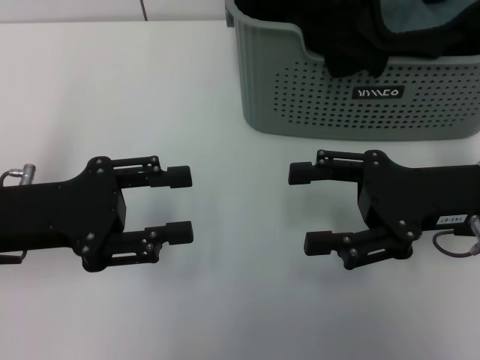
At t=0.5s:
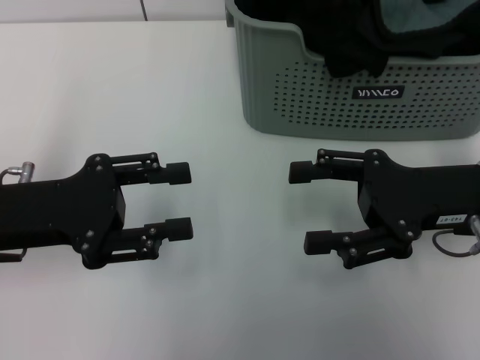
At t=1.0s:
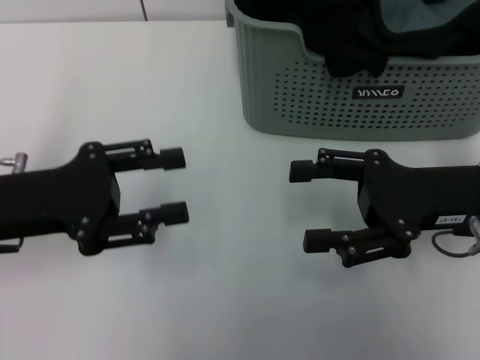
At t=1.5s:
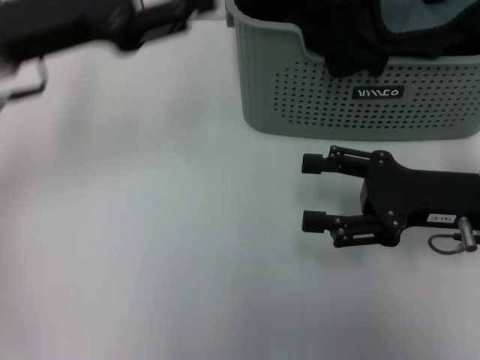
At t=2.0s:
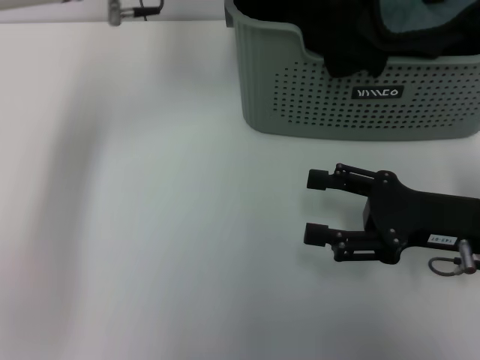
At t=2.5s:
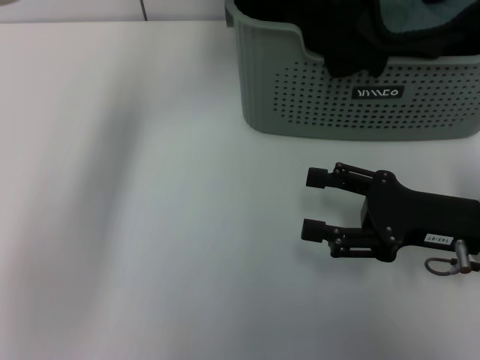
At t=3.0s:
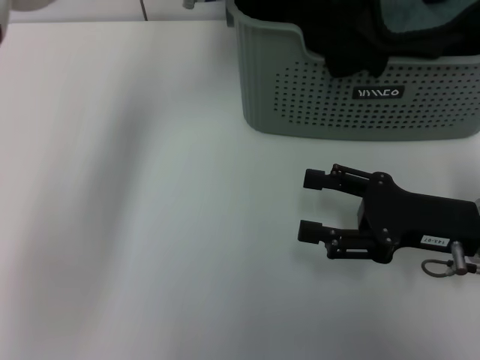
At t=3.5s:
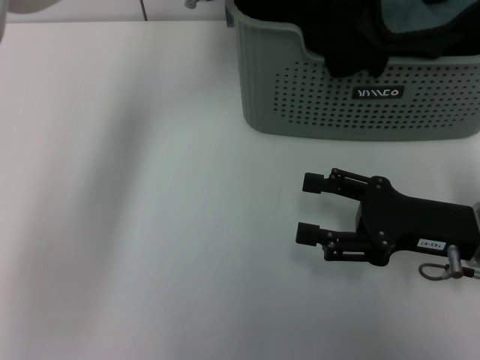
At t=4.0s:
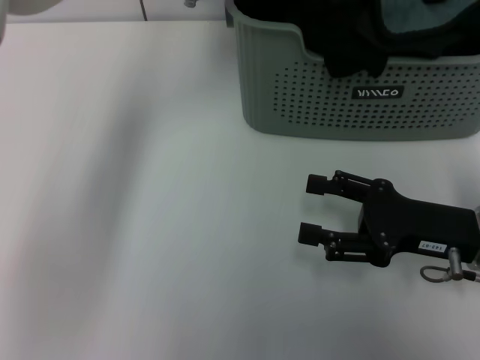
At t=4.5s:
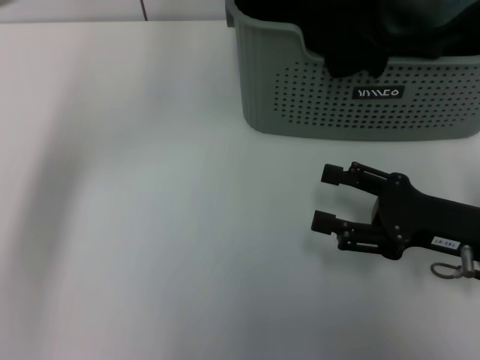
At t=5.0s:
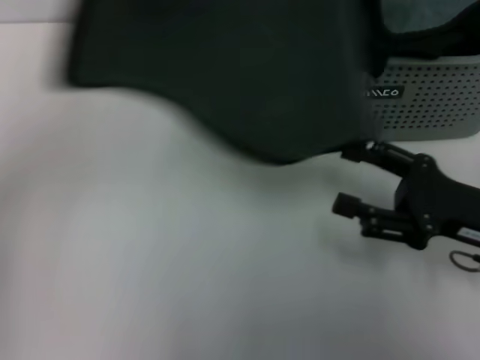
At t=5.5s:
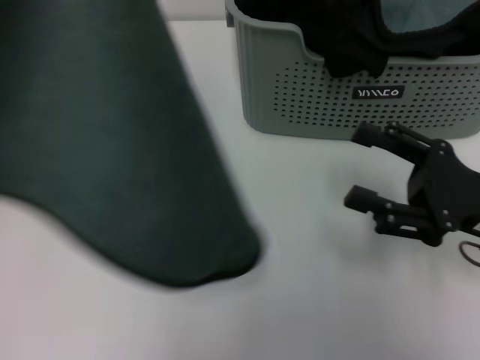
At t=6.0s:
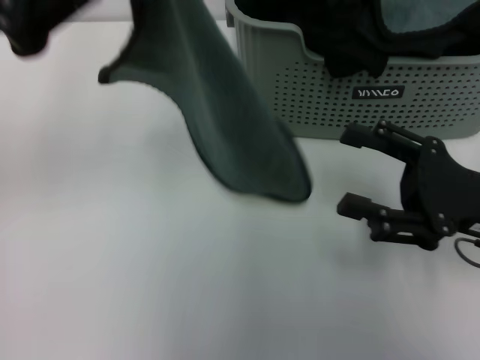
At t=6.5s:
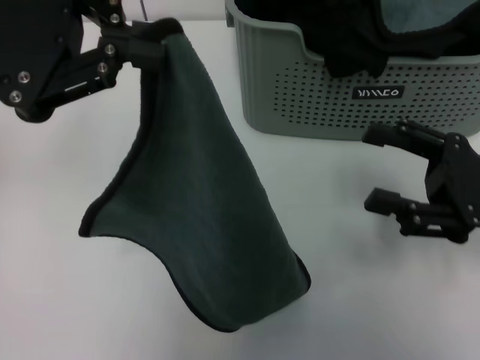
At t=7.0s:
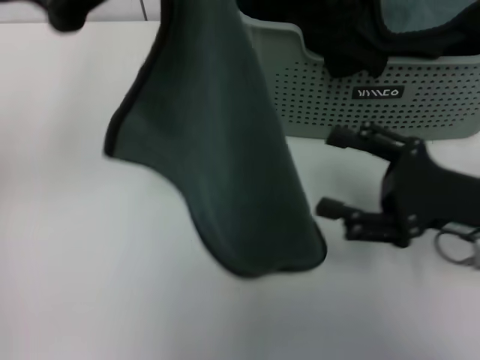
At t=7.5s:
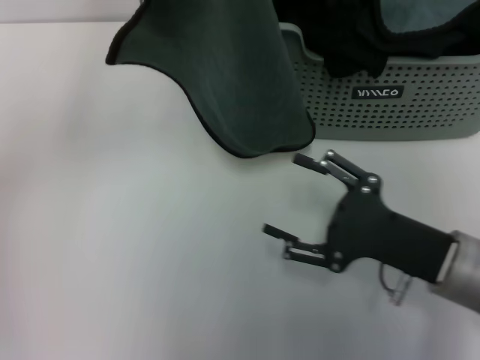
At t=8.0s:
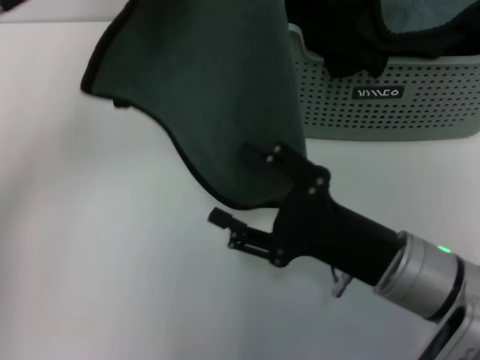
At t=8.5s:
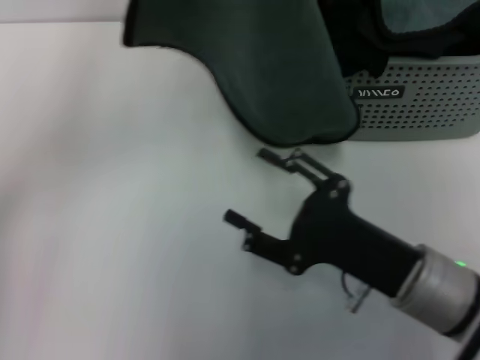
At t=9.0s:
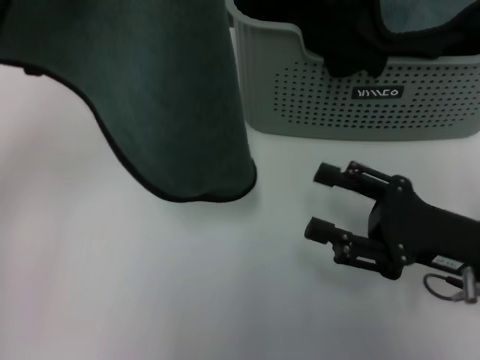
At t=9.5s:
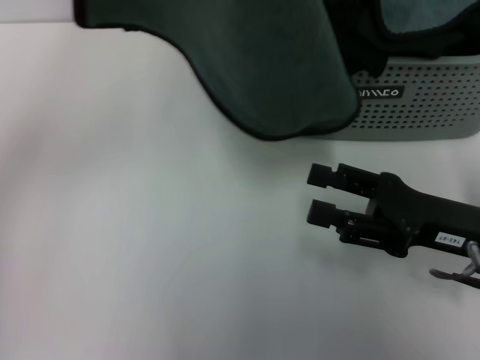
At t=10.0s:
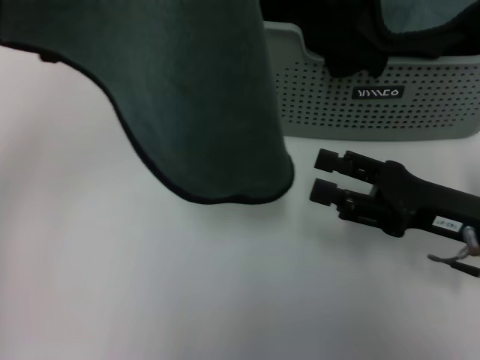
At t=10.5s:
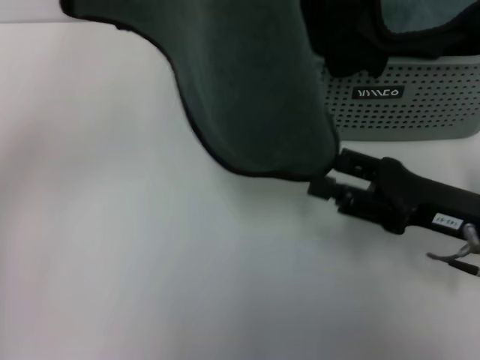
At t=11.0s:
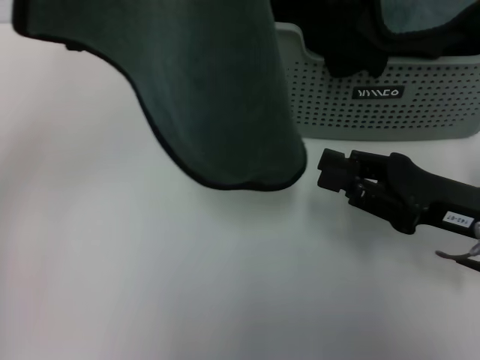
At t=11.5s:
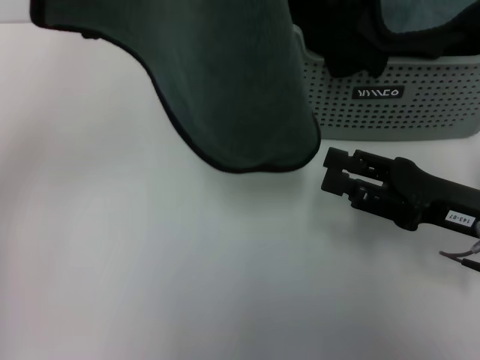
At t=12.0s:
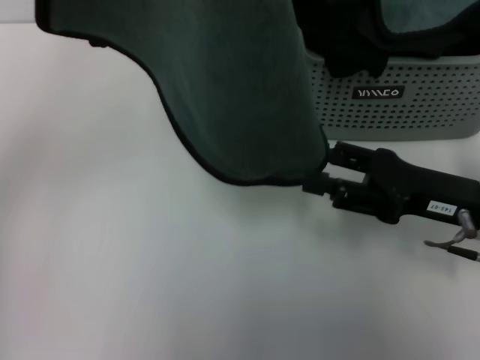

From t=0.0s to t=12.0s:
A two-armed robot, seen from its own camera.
Task of the whole recording: pick up the towel from the storage box and lay it flat on the table.
Step, from t=0.0s to t=4.0s: Pick up a towel with the left gripper.
From t=0.0s to t=2.0s: The left gripper heads forward, to the right and upward, covering some 25 cm.
From t=2.0s to t=4.0s: The left gripper goes some 5 cm to the right, and closes up.
From t=4.0s to t=6.0s: The left gripper travels to the left and backward by about 25 cm.
From t=6.0s to t=8.0s: The right gripper goes about 10 cm to the left. Meanwhile the left gripper is displaced to the right by approximately 5 cm.
From t=8.0s to t=10.0s: The left gripper goes approximately 5 cm upward. The right gripper travels to the right by roughly 10 cm.
From t=10.0s to t=12.0s: The grippers make only small movements.

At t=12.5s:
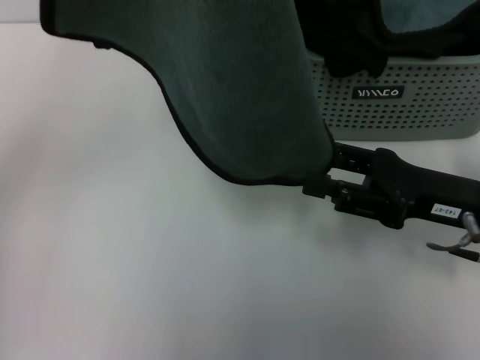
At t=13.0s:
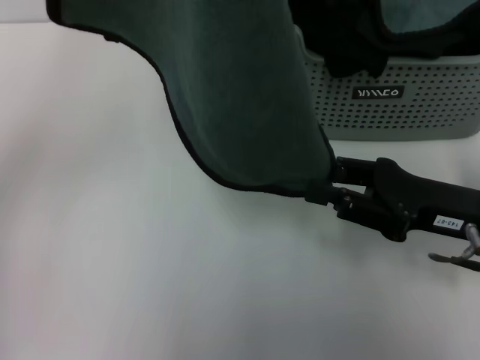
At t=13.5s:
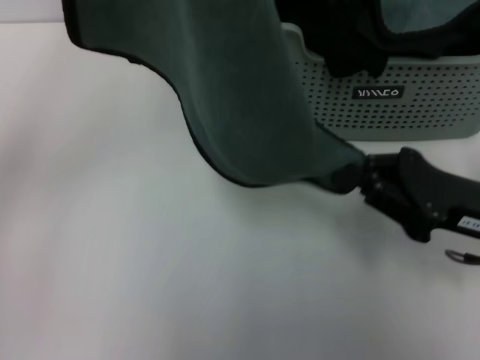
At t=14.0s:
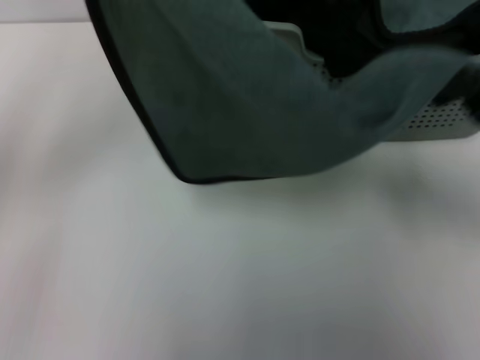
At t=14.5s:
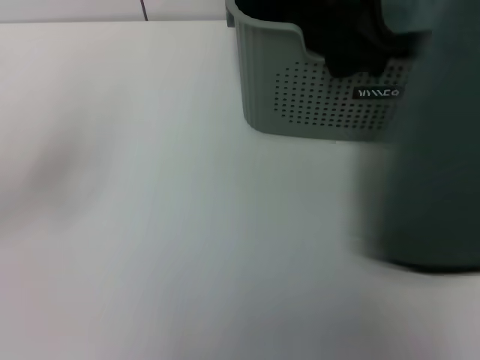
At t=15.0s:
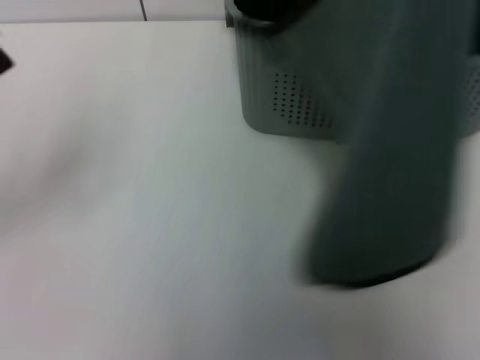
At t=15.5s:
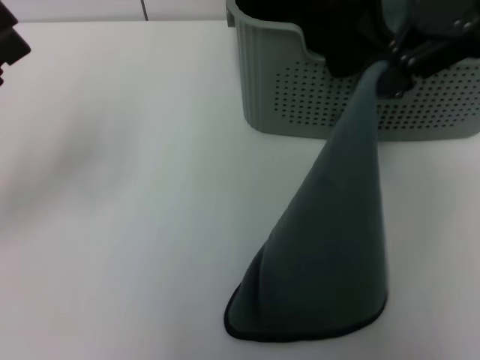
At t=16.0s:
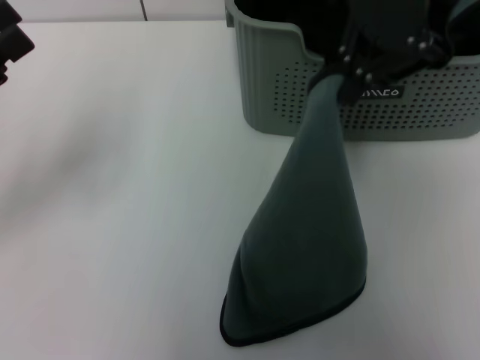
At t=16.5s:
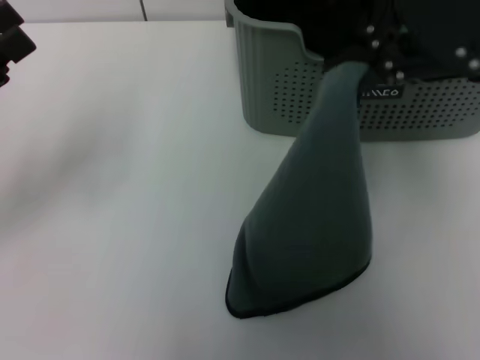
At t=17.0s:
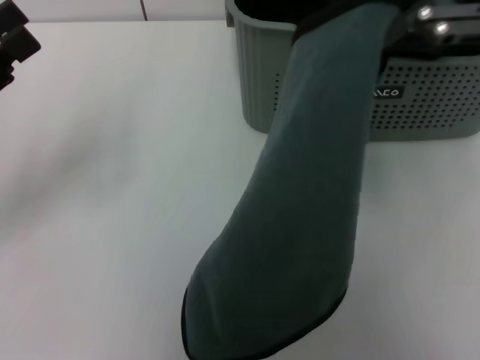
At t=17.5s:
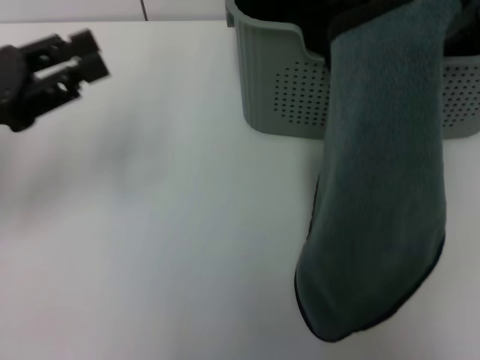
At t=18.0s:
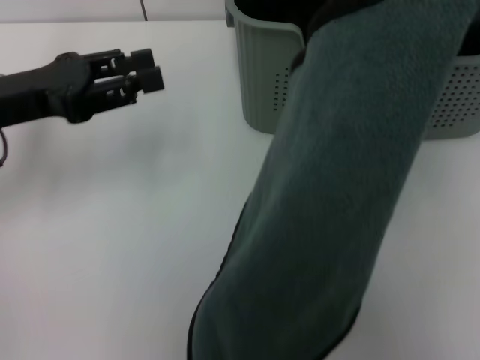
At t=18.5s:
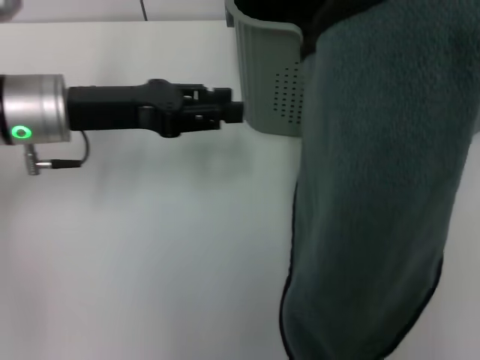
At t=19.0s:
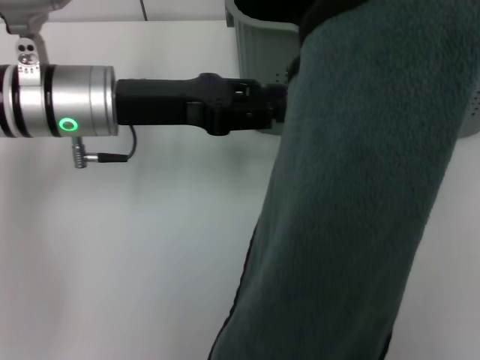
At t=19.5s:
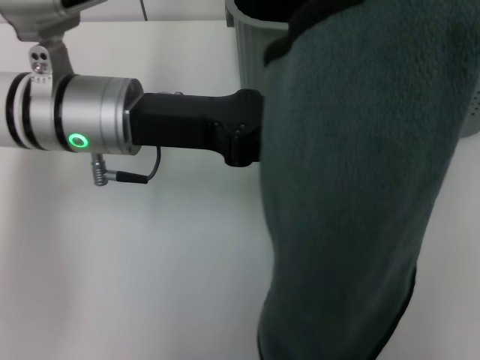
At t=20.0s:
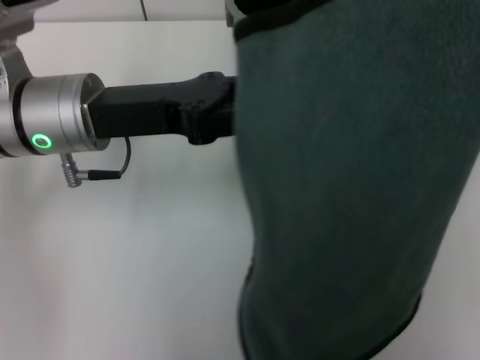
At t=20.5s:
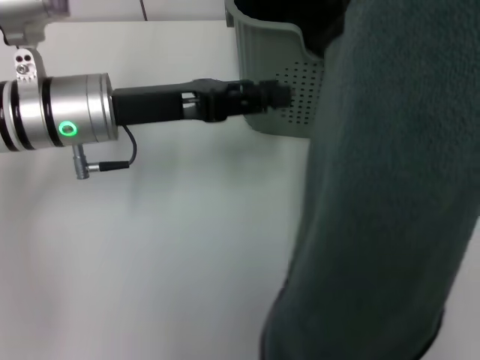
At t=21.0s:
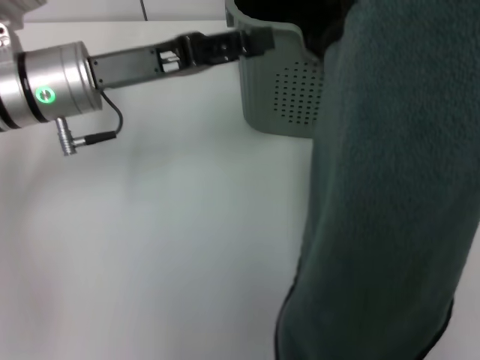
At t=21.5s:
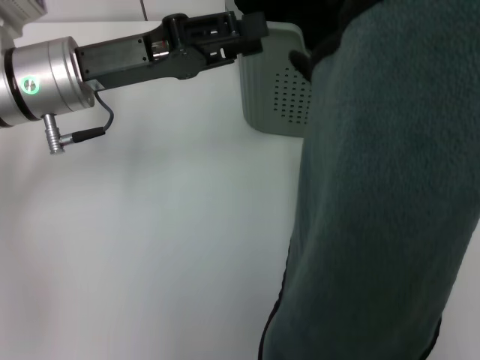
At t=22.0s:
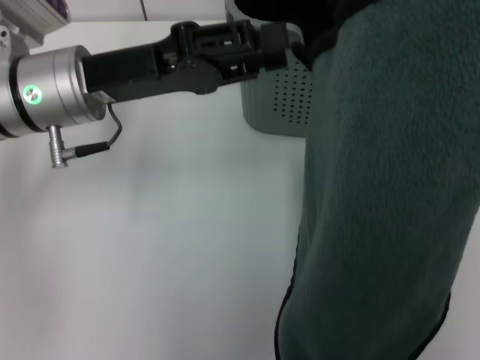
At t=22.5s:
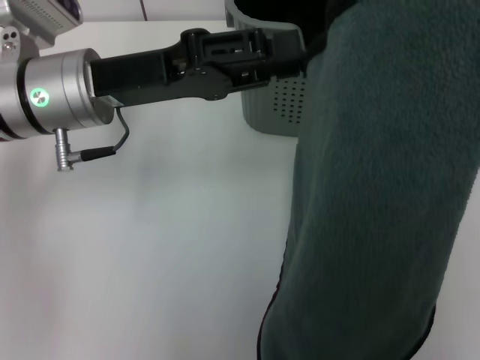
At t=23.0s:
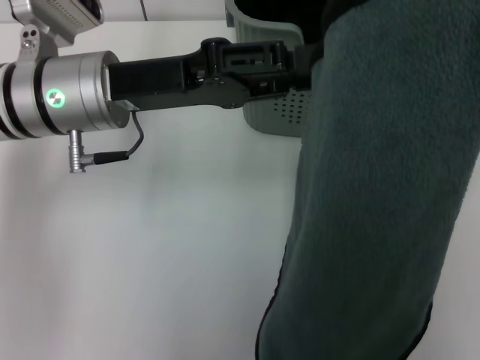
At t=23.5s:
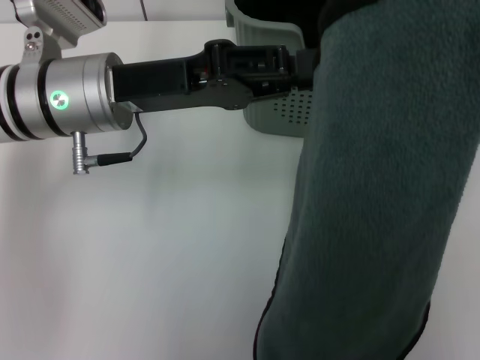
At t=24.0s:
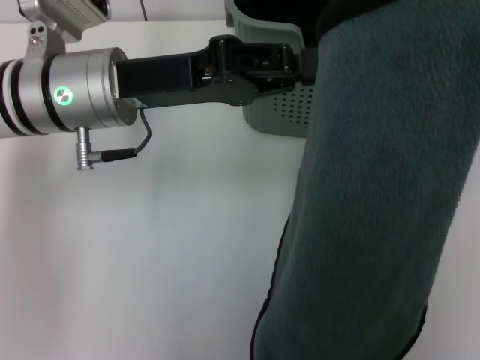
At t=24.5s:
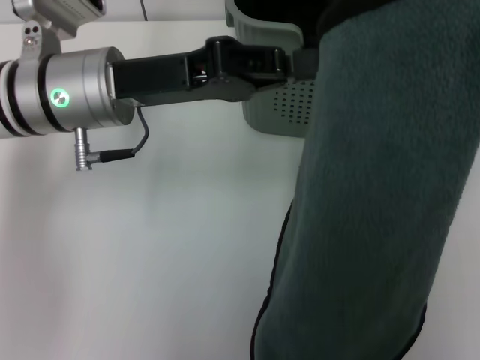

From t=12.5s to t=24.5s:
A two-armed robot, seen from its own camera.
Task of the whole recording: pick up the towel from the storage box and lay it flat on the table.
From t=12.5s to t=14.5s: The right gripper moves upward and to the right, approximately 15 cm, and closes up; the left gripper travels downward, to the left and backward by some 20 cm, and opens its fingers.
From t=14.5s to t=16.5s: The right gripper moves upward and to the left, roughly 20 cm.
From t=16.5s to t=18.5s: The left gripper moves to the right and forward, about 15 cm.
From t=22.5s to t=24.5s: The left gripper closes its fingers.

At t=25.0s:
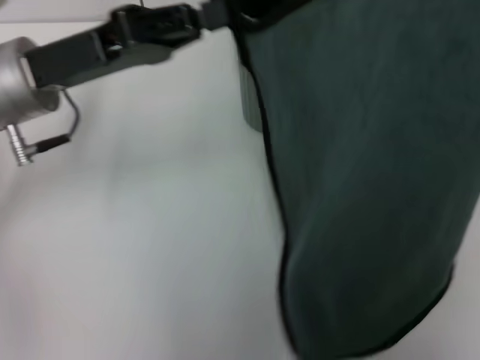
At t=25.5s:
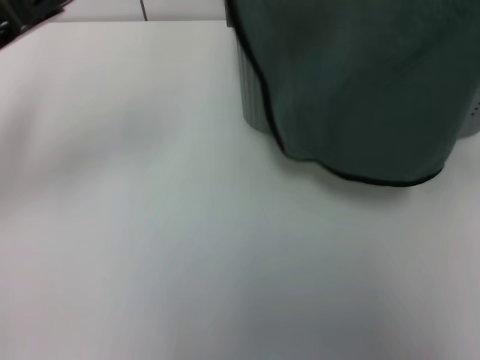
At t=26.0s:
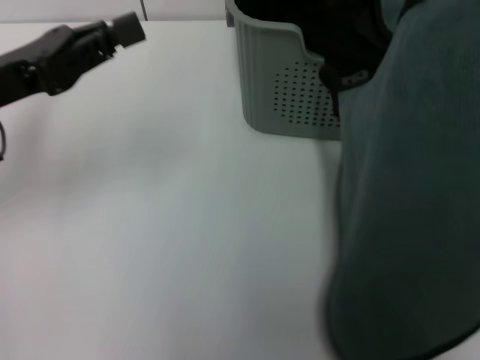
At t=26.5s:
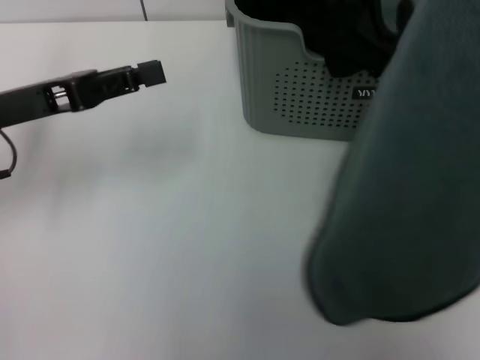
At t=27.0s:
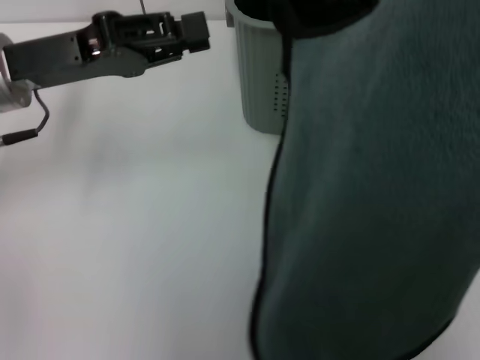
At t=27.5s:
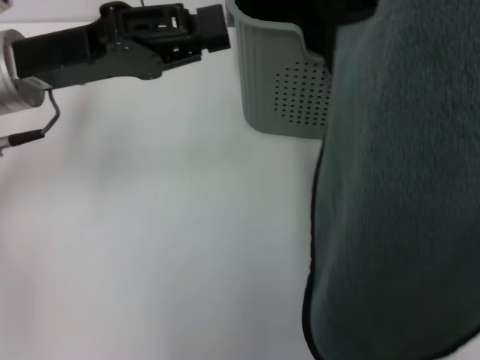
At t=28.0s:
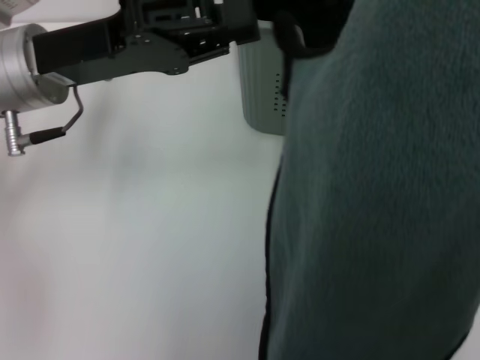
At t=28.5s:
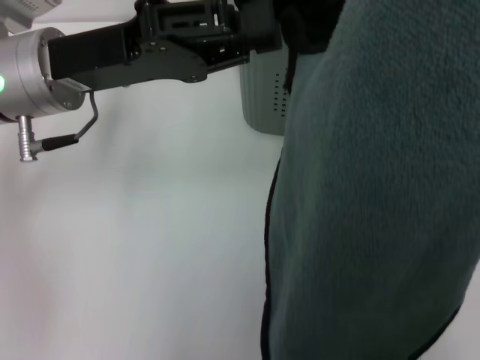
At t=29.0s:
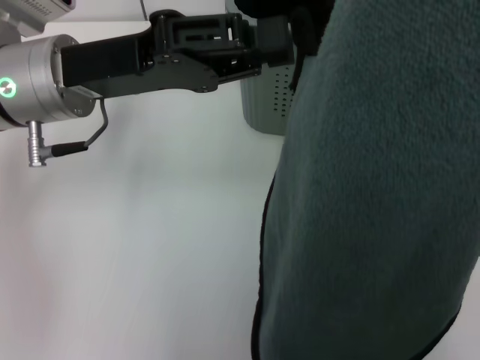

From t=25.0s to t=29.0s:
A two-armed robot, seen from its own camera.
Task of the whole recording: pick up the towel from the storage box and lay it flat on the table.
From t=25.0s to t=27.0s: The left gripper opens its fingers, while the right gripper goes downward and returns, approximately 10 cm each way.
From t=27.0s to t=29.0s: The left gripper moves to the right, approximately 5 cm.
